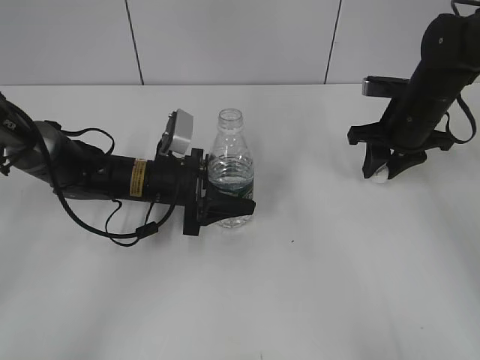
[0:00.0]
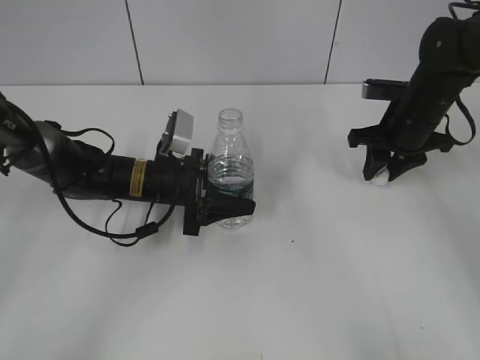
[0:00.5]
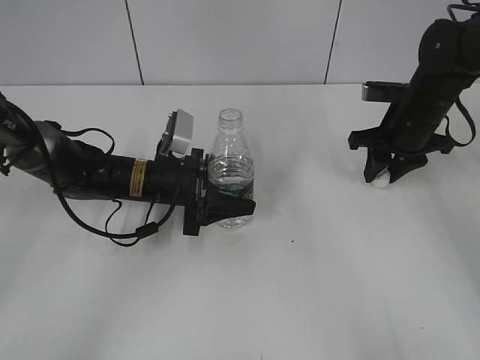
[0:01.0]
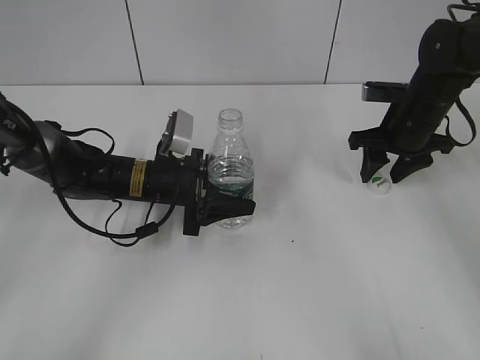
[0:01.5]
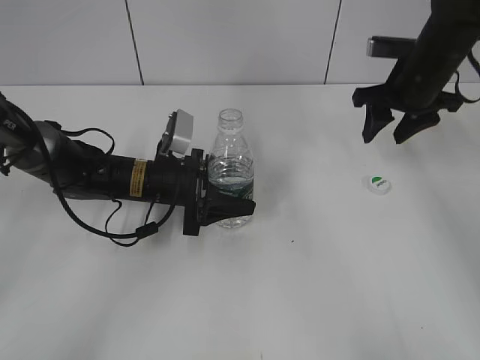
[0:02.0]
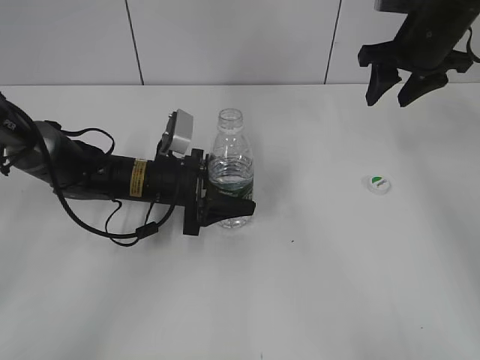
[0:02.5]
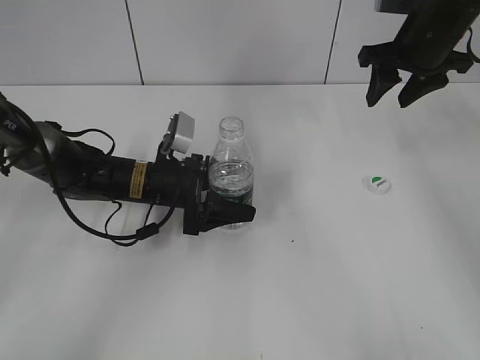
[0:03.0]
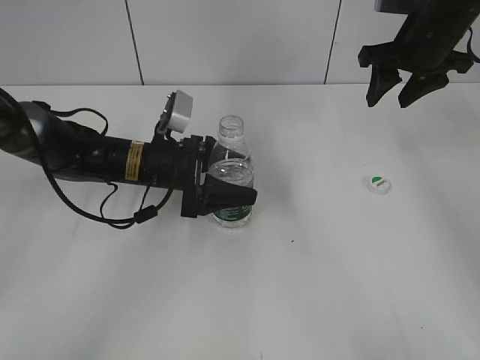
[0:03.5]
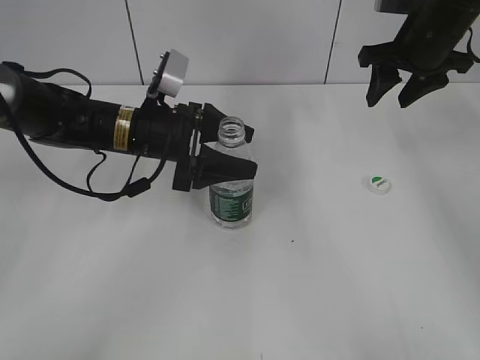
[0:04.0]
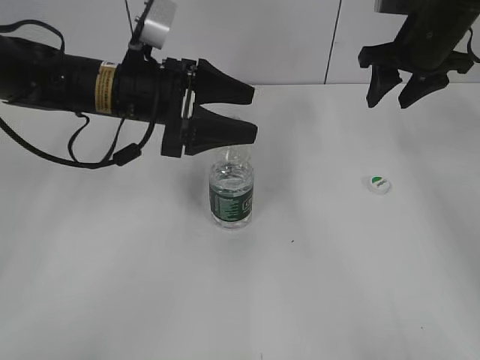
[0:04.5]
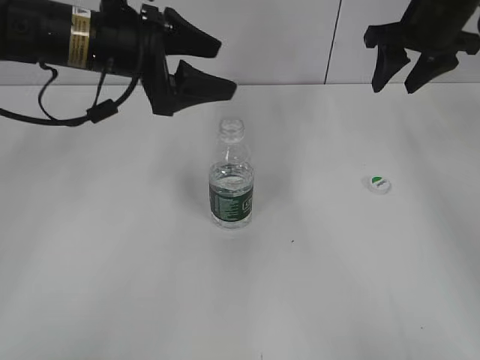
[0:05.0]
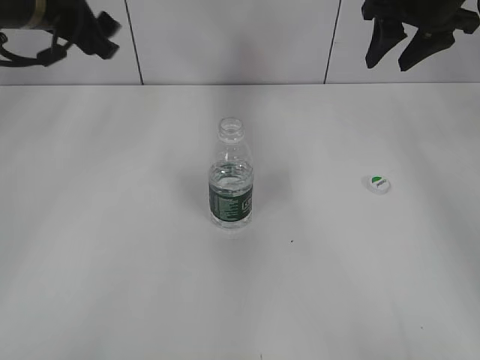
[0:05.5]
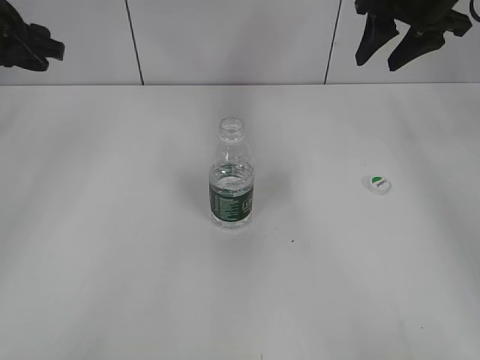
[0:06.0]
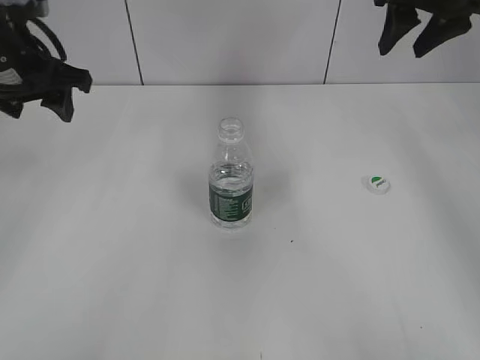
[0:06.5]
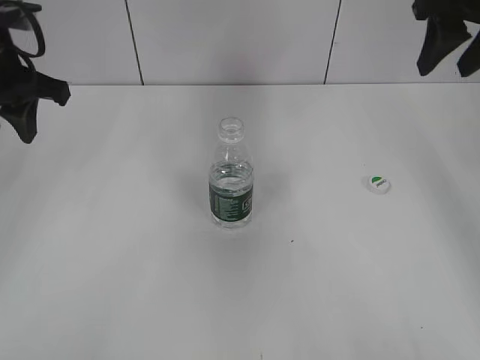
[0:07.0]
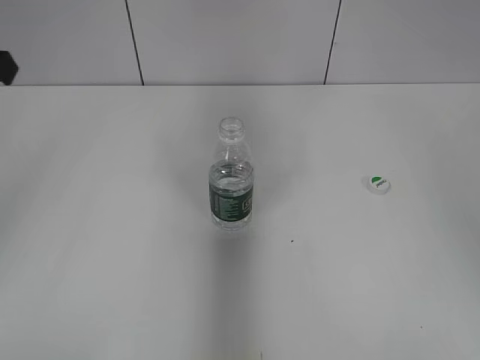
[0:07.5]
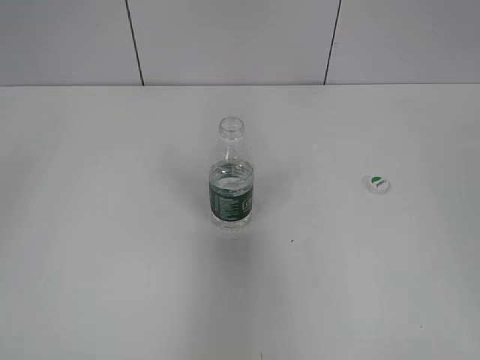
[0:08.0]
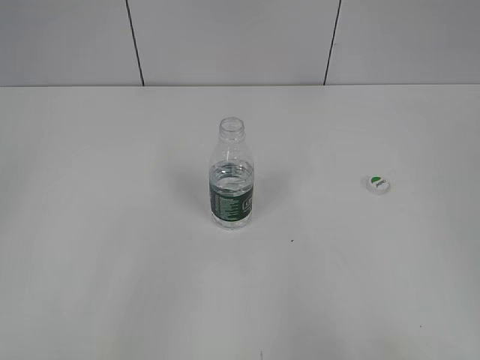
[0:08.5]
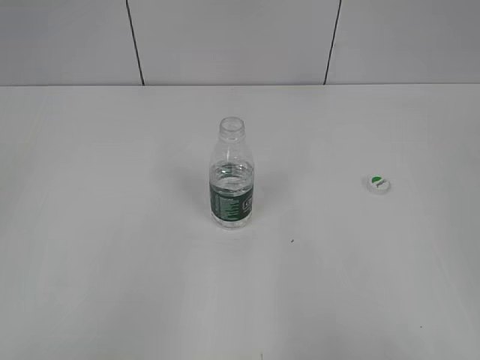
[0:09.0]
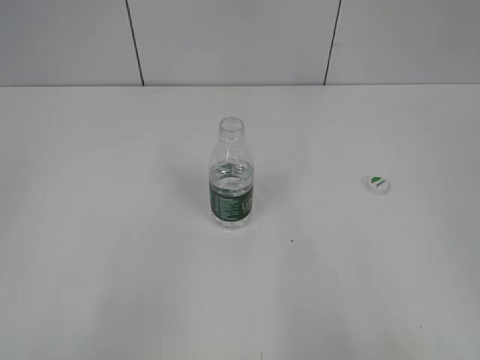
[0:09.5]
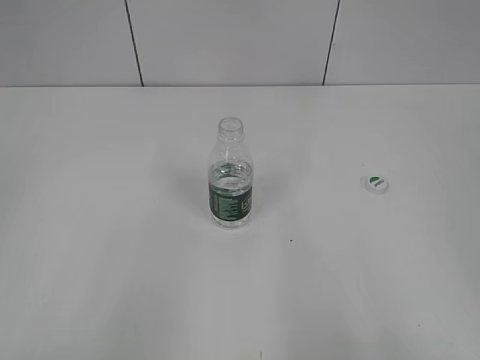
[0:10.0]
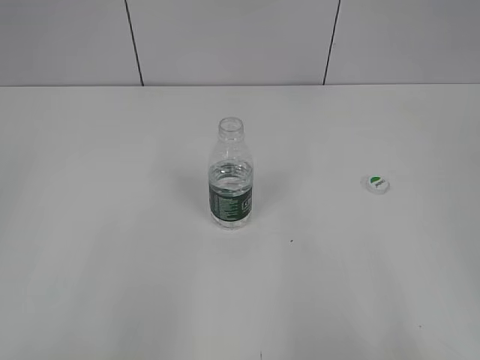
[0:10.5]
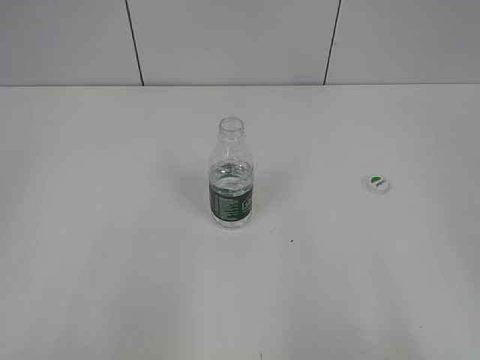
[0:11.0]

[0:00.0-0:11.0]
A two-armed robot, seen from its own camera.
Step, 0:02.0 to 0:04.0: Place the bottle on the table with the left gripper.
0:00.0 to 0:02.0: The right gripper ends up roughly 5 cm from where it was, and opens up.
0:02.0 to 0:03.5: The right gripper shifts some 5 cm upward. Meanwhile the left gripper opens.
0:03.5 to 0:05.5: The right gripper travels upward by about 5 cm. The left gripper heads upward and to the left, covering roughly 20 cm.
0:05.5 to 0:07.5: The right gripper is displaced backward by some 25 cm. Meanwhile the left gripper heads backward and to the left, covering roughly 15 cm, and closes.
0:07.5 to 0:09.0: The two grippers go approximately 25 cm backward.

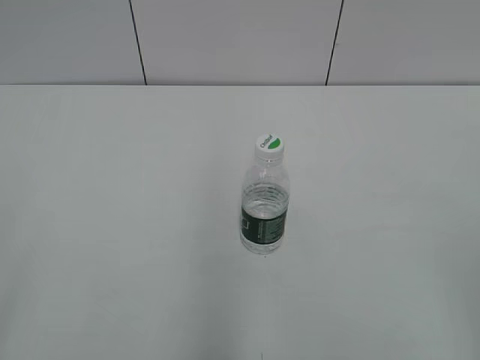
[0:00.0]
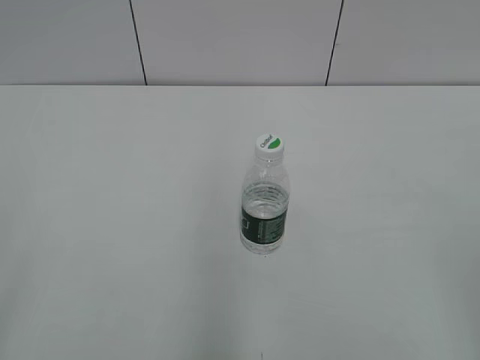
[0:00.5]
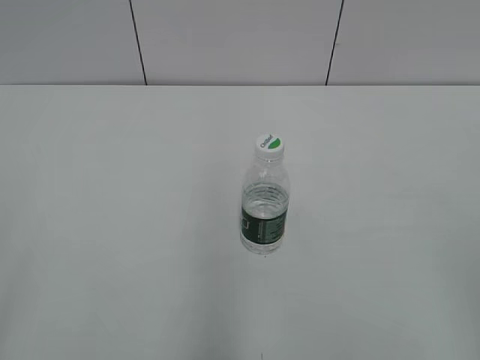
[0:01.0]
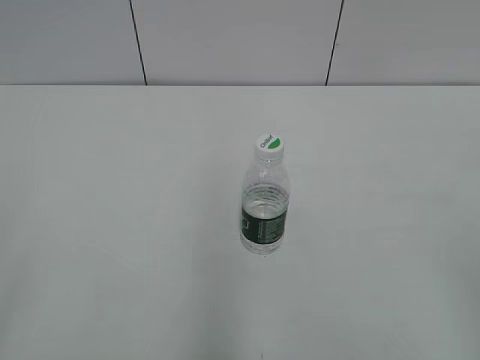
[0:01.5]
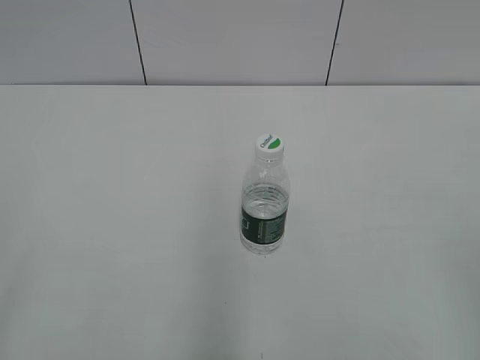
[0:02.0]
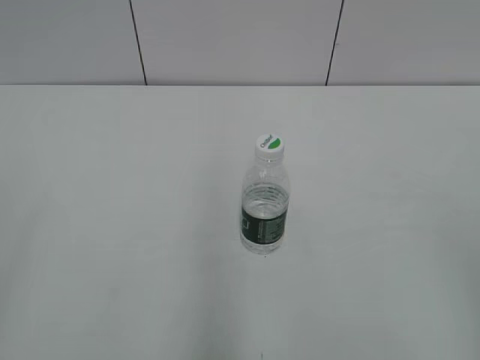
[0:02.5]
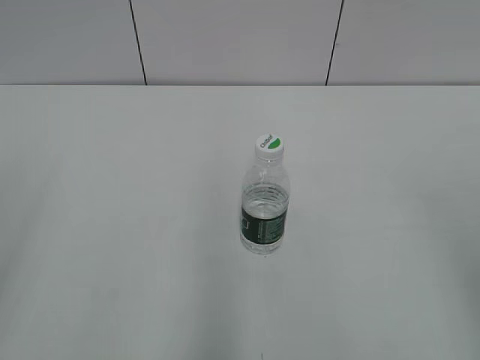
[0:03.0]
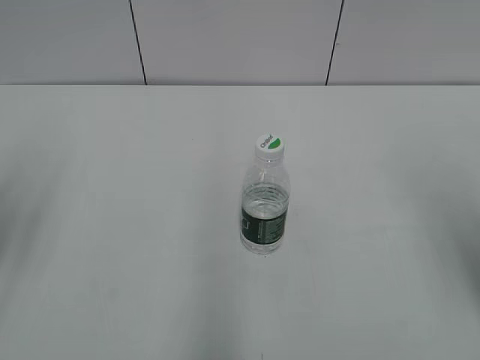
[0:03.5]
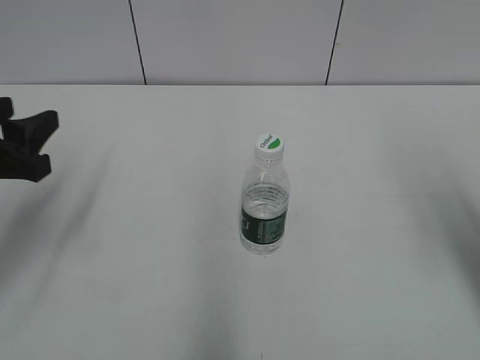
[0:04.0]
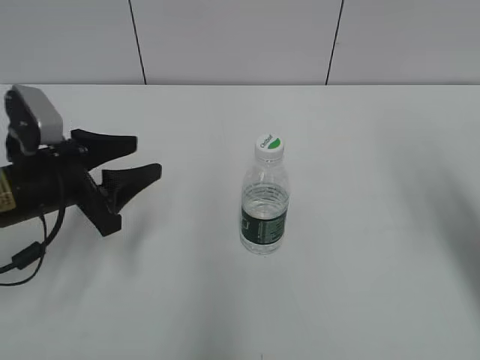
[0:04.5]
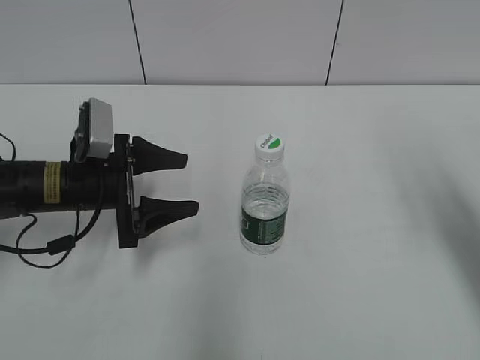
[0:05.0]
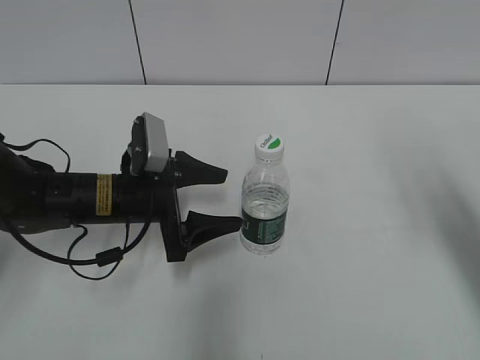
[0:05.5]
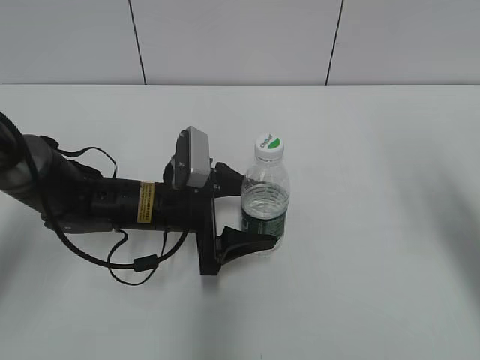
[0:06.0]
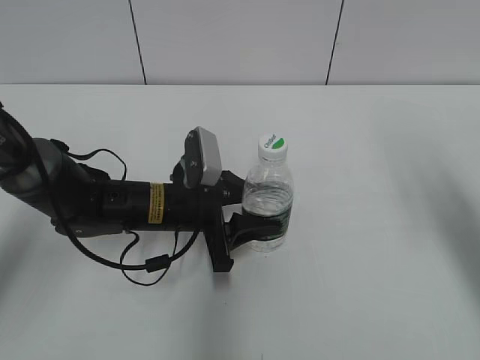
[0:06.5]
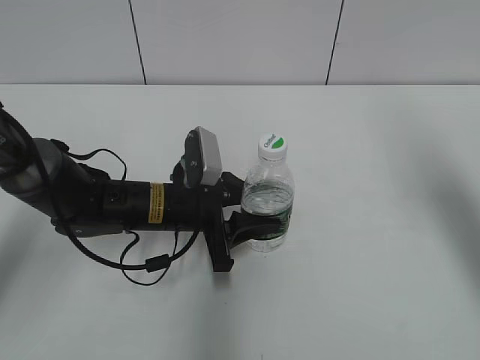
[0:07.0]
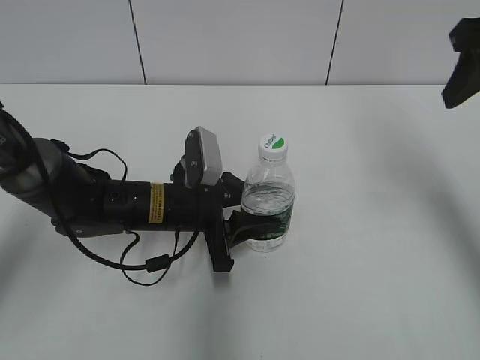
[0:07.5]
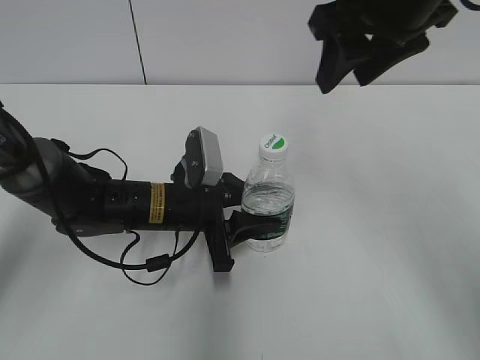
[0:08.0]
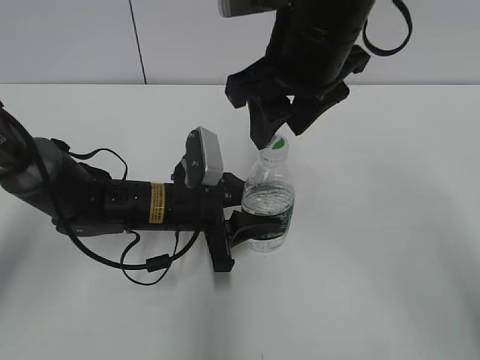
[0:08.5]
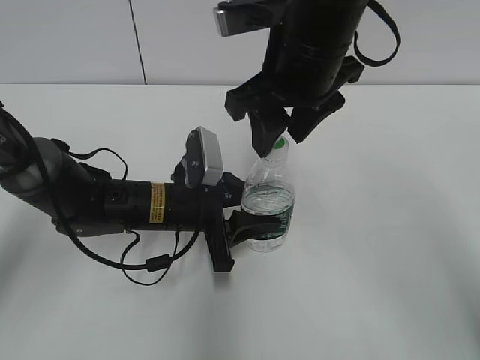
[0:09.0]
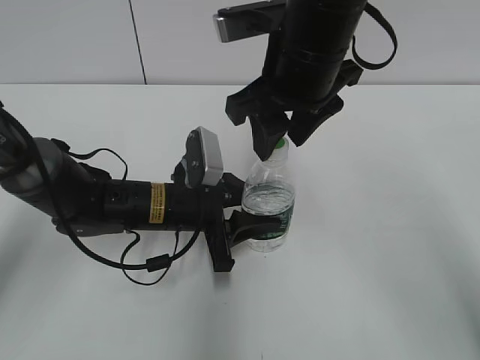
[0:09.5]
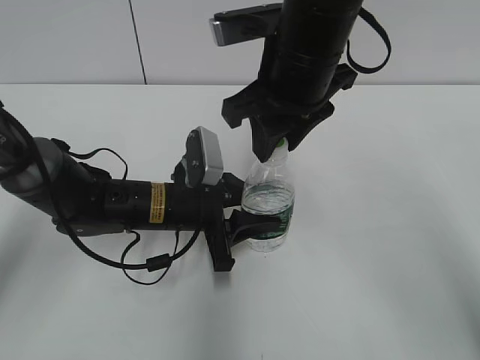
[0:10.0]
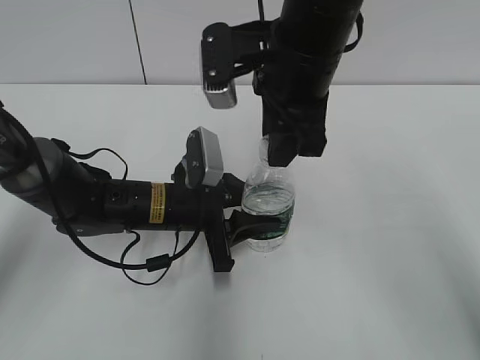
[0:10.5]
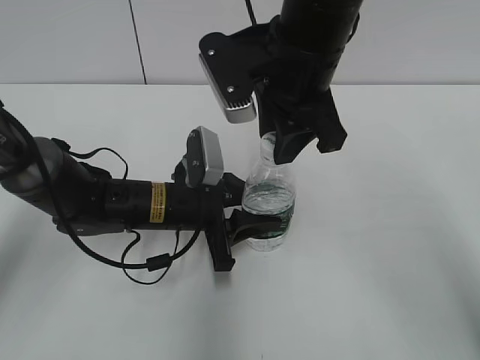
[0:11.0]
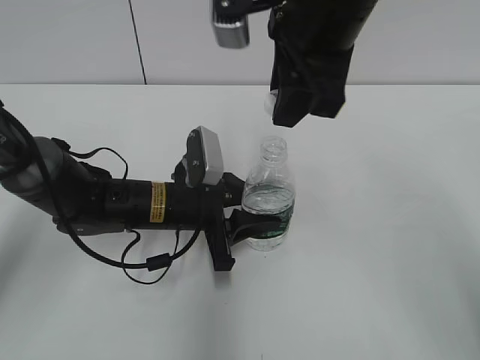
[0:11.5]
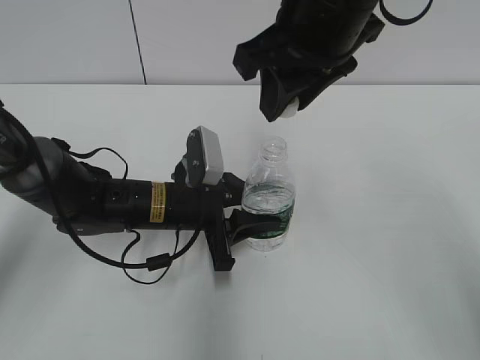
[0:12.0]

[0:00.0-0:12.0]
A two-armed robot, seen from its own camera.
Step, 0:00.0 to 0:06.5: Grasp the bottle and move it to the center of the table with the left gripper.
Step, 0:07.0 to 0:11.0: Unscrew the bottle cap with the right gripper while holding the bottle with the left gripper.
0:02.0 to 0:04.0: The grippers both shift forward by roughly 20 cm.
0:04.0 to 0:06.0: The left gripper moves to the right, downward and forward, approximately 25 cm, and opens its fingers; the right gripper moves approximately 5 cm.
0:06.0 to 0:08.0: The left gripper closes its fingers. Meanwhile the right gripper travels to the left and forward by roughly 20 cm, and closes.
0:08.0 to 0:10.0: The right gripper goes roughly 10 cm to the left and downward, and closes up.
0:10.0 to 0:12.0: The right gripper is displaced upward by some 5 cm.

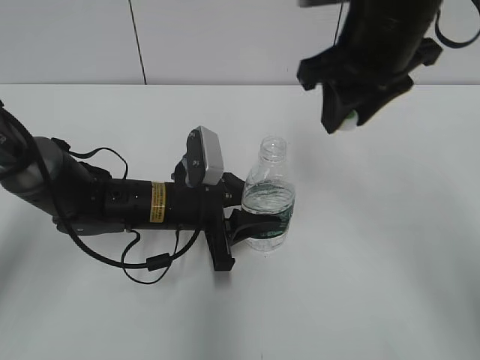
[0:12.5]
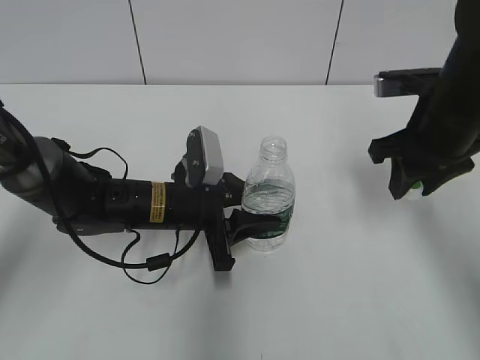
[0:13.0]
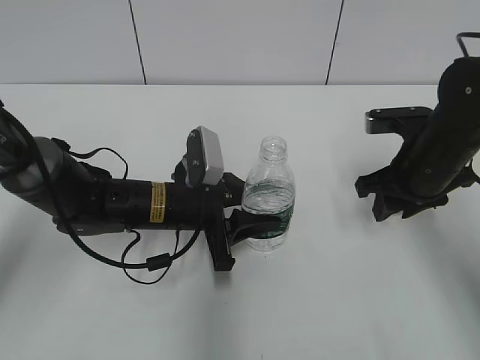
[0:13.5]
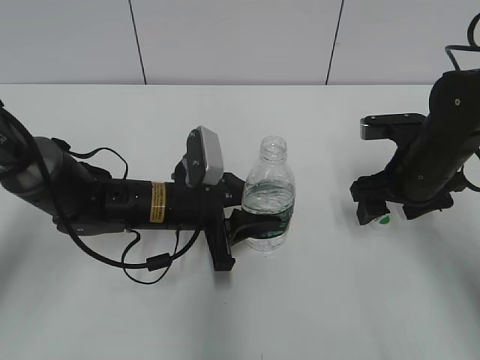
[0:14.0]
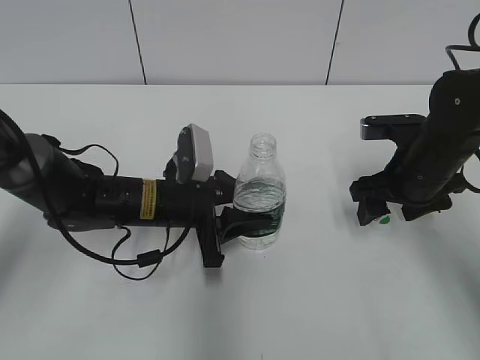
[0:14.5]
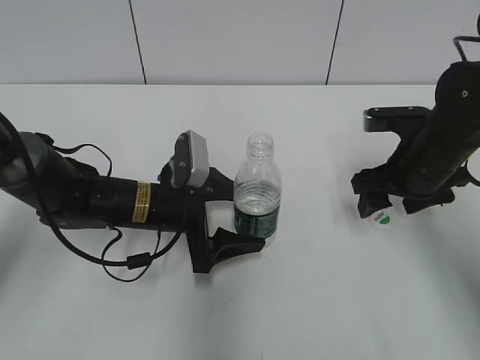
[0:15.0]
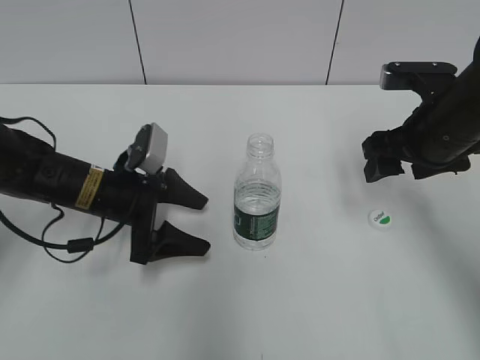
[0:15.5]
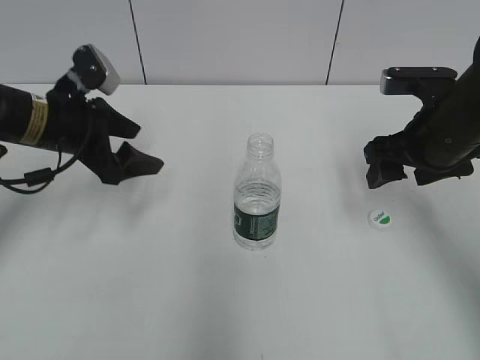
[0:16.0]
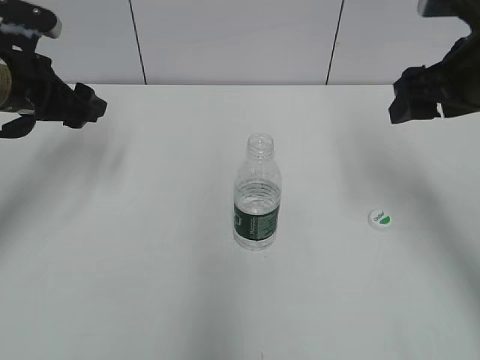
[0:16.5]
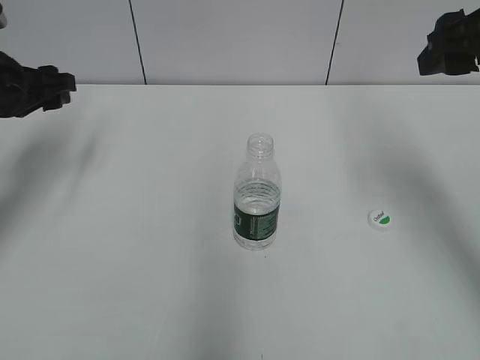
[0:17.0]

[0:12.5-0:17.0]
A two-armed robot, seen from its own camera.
Step, 0:12.5 to 0:14.0: Place the bottle cap on the table with the right gripper.
Step, 0:14.5 to 0:15.5: Place the bottle on the table with the left gripper.
0:12.5 to 0:14.5: The right gripper shifts roughly 20 cm downward and to the right, and opens its fingers.
0:14.5 to 0:17.0: The left gripper goes about 25 cm to the left and upward, and opens its fingers. Meanwhile the right gripper heads upward, covering approximately 20 cm.
